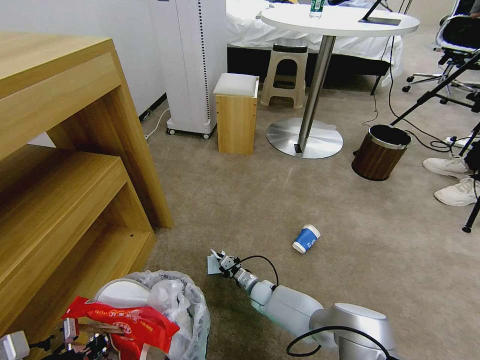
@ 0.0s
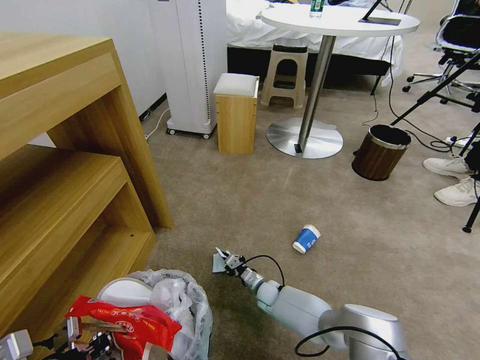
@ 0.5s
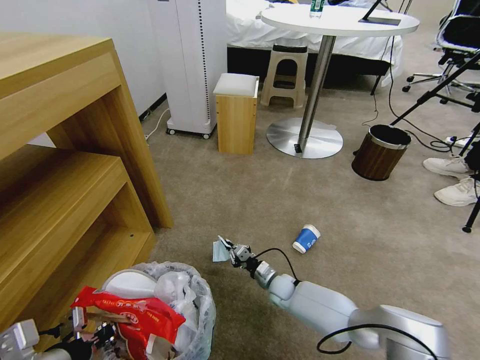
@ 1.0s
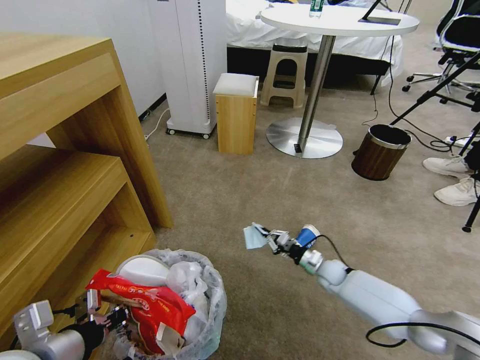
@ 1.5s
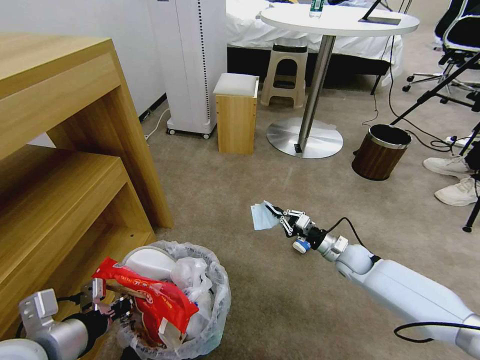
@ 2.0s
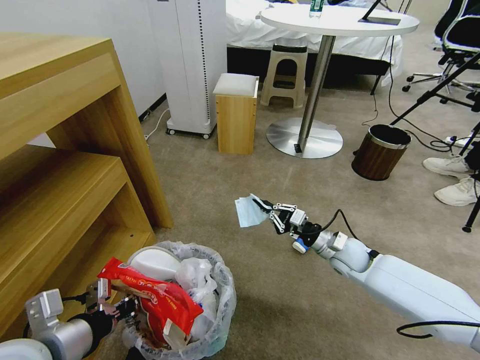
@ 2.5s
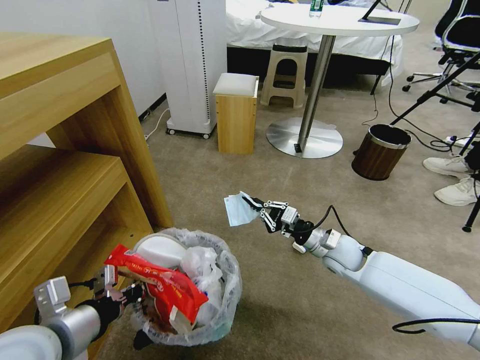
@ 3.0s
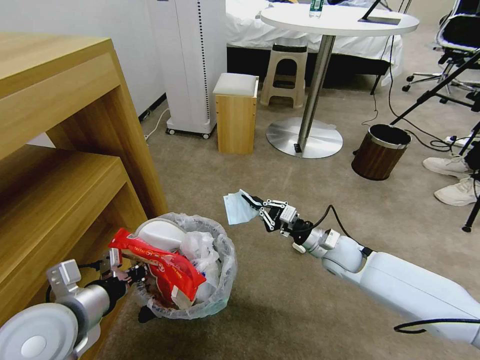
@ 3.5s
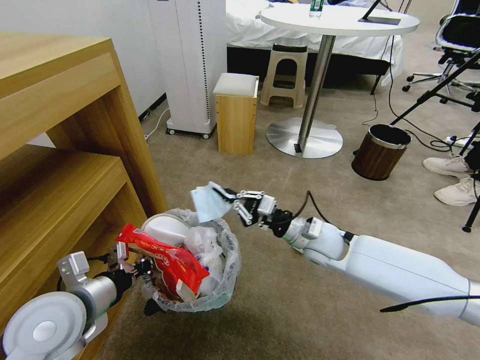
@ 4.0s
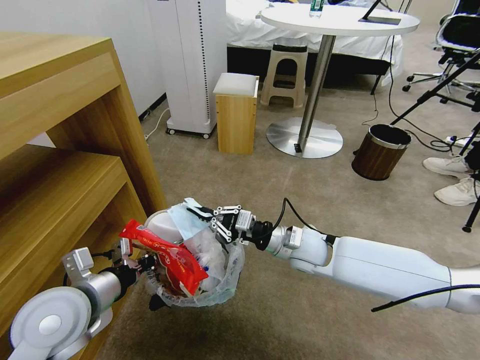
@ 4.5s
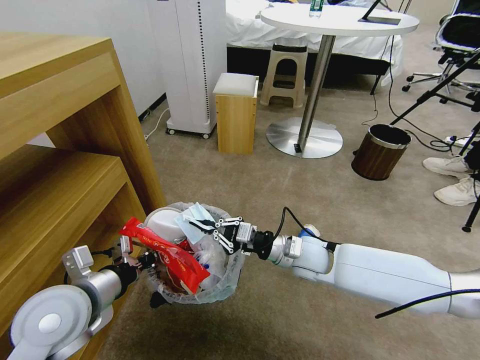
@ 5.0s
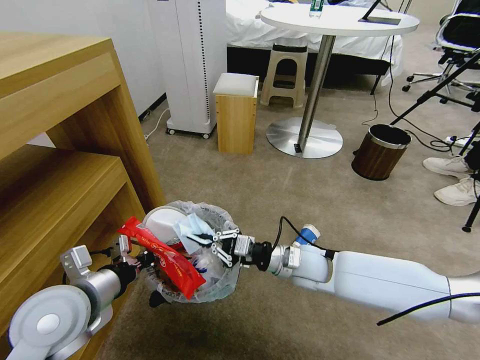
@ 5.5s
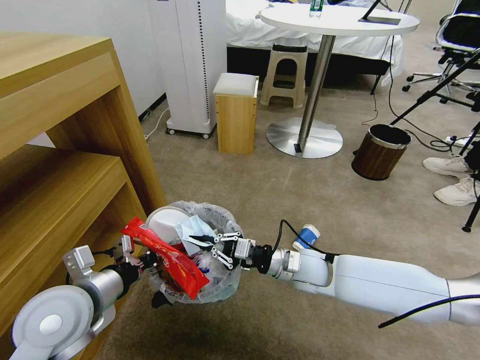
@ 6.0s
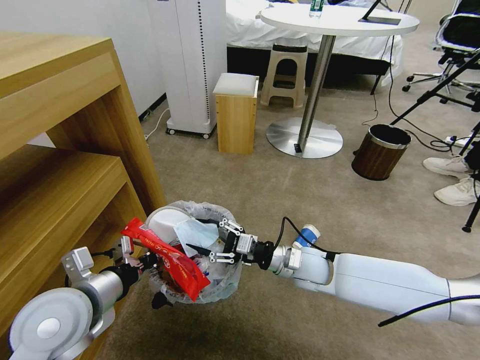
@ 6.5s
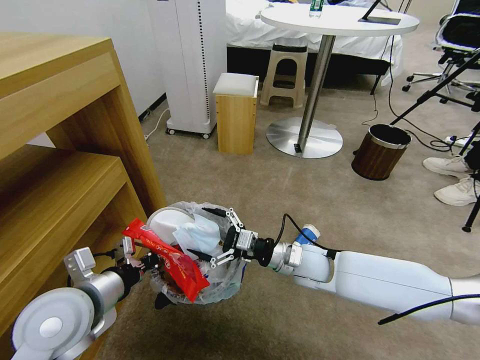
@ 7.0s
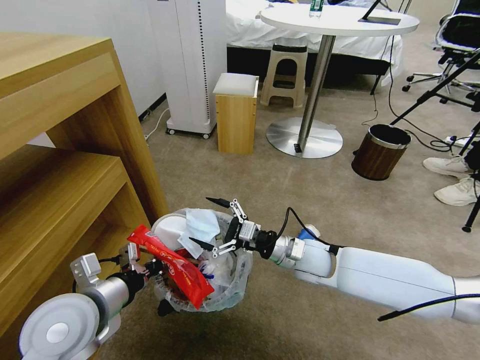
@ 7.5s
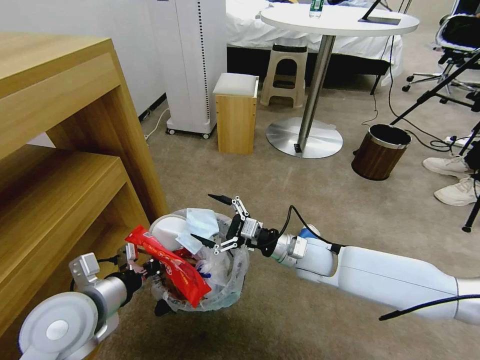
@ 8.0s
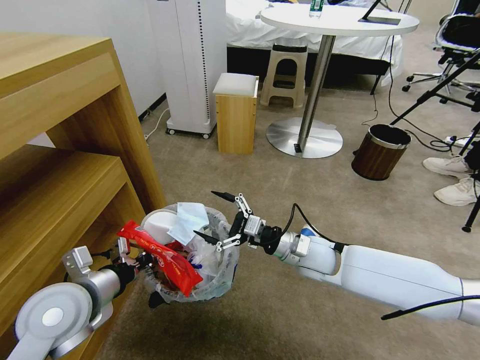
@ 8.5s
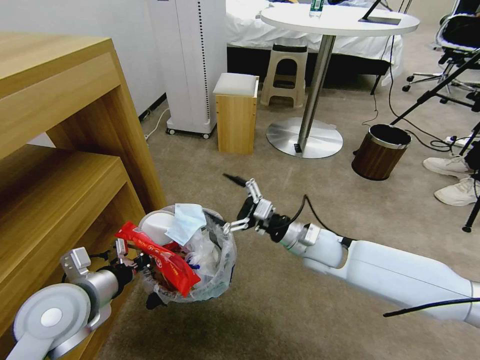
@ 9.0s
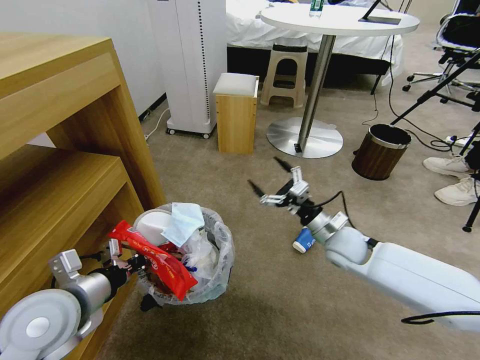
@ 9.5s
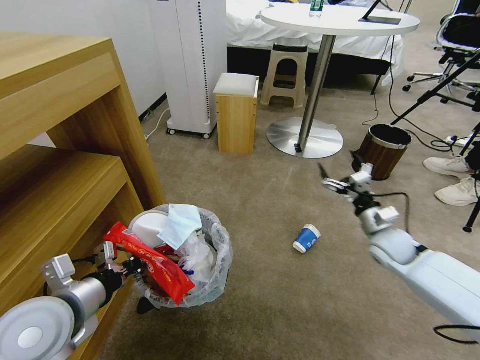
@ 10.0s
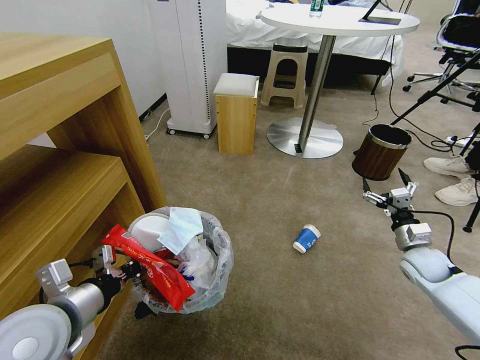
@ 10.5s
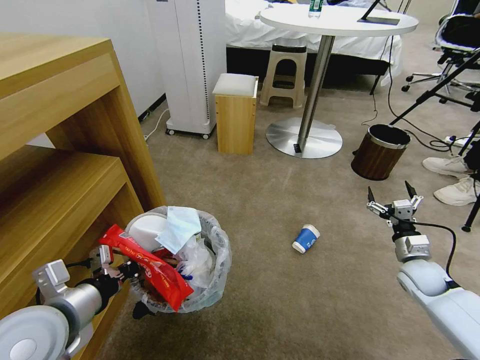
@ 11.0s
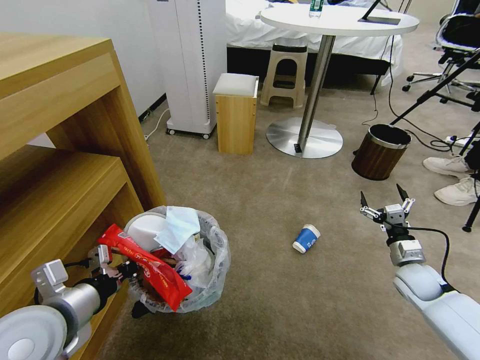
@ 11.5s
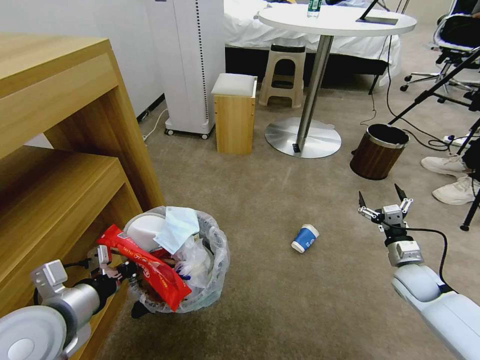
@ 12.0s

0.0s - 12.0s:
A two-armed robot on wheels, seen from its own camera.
Task of the whole recording: Pick up the trash bin and place the garbage on the floor into it.
0.0s - 2.0s: The right gripper shifts approximately 30 cm to the right and upward.
2.0s - 4.0s: The right gripper shifts some 20 cm to the left and upward. Meanwhile the left gripper travels forward by about 5 cm.
4.0s - 6.0s: The right gripper changes place by approximately 5 cm.
6.0s - 8.0s: The right gripper opens.
8.0s - 10.0s: The right gripper is displaced to the right by some 20 cm.
10.0s - 12.0s: The right gripper heads downward, to the right and backward, covering about 10 cm.

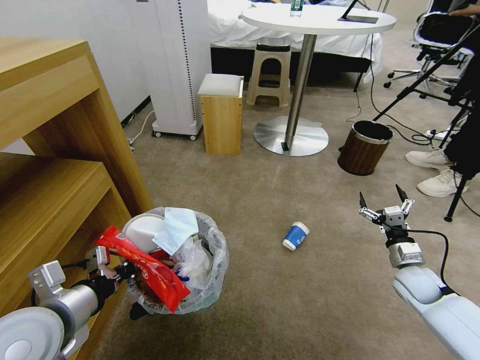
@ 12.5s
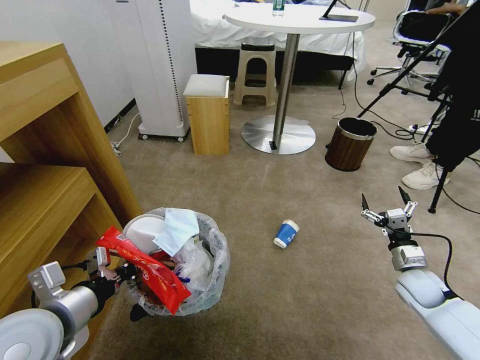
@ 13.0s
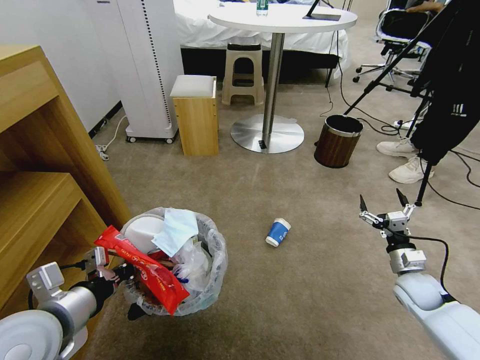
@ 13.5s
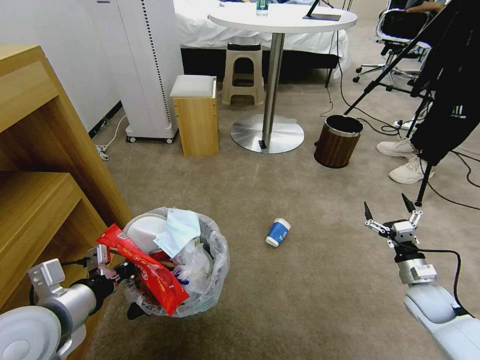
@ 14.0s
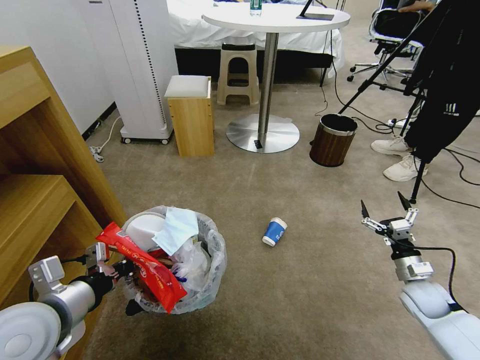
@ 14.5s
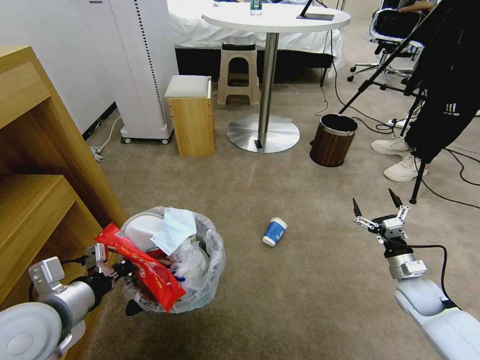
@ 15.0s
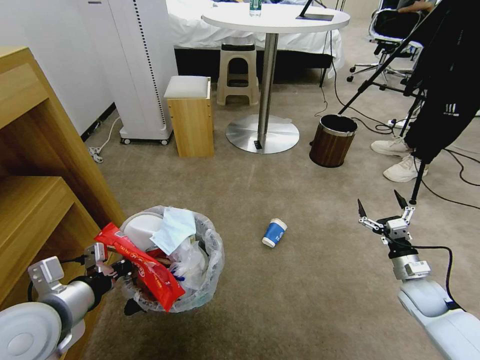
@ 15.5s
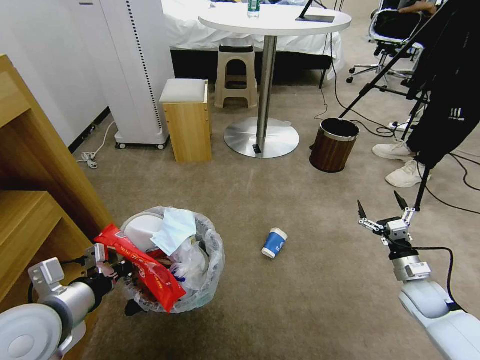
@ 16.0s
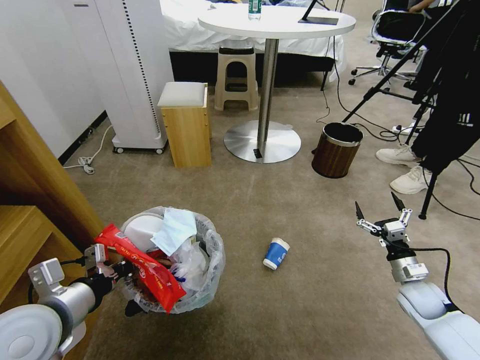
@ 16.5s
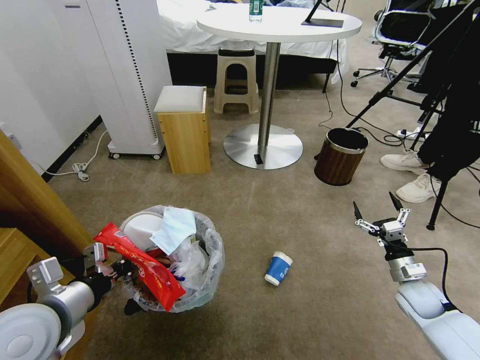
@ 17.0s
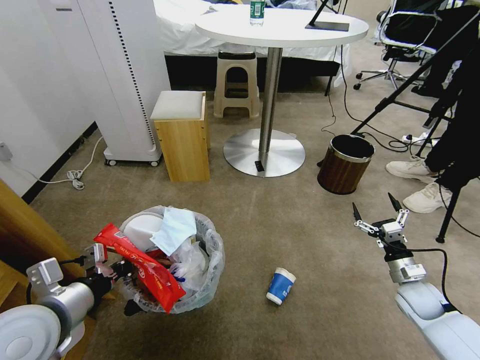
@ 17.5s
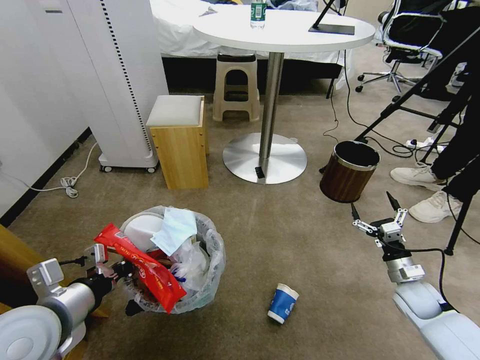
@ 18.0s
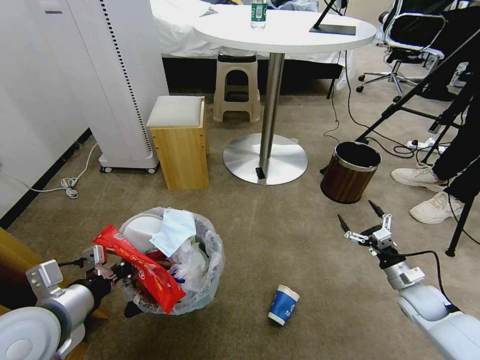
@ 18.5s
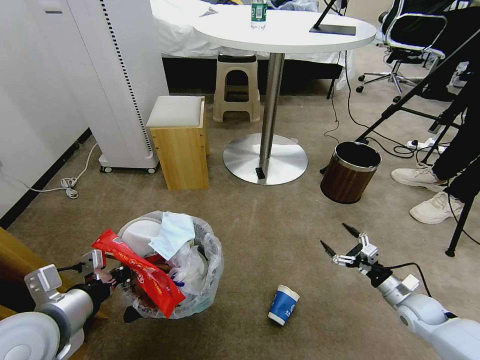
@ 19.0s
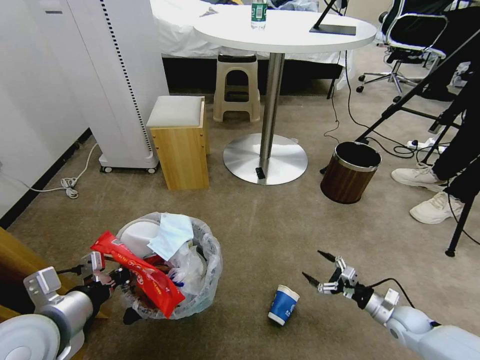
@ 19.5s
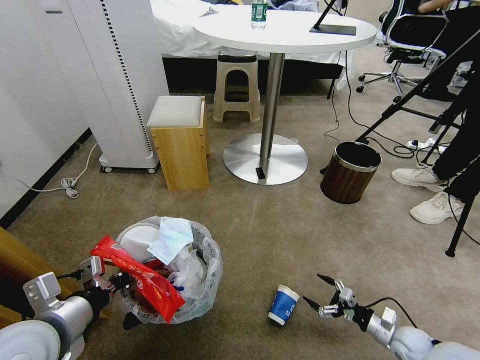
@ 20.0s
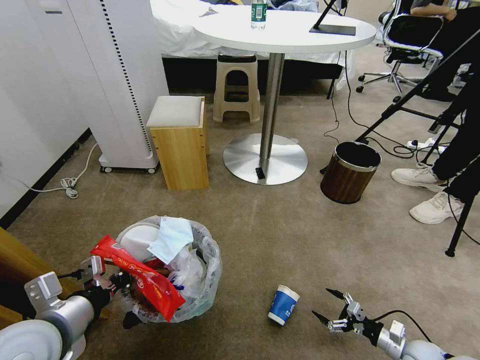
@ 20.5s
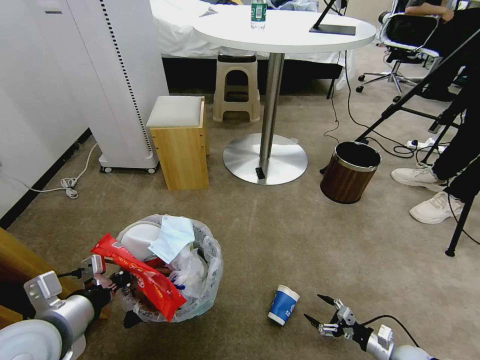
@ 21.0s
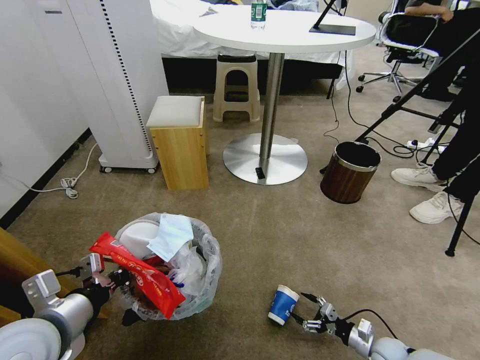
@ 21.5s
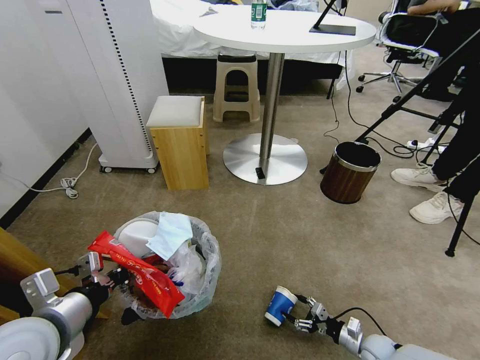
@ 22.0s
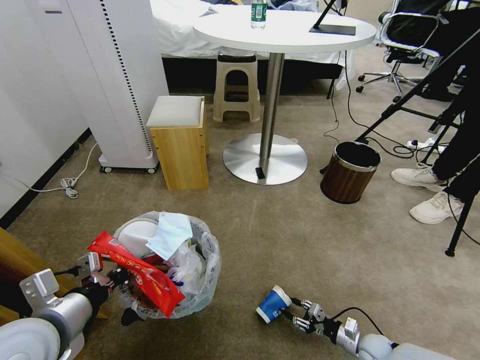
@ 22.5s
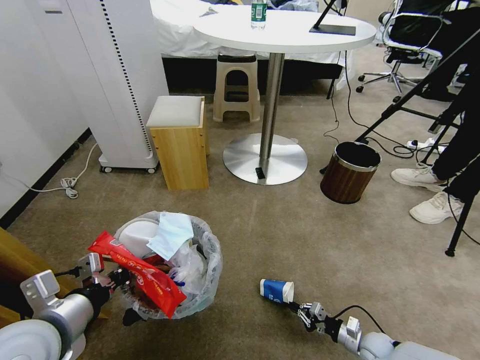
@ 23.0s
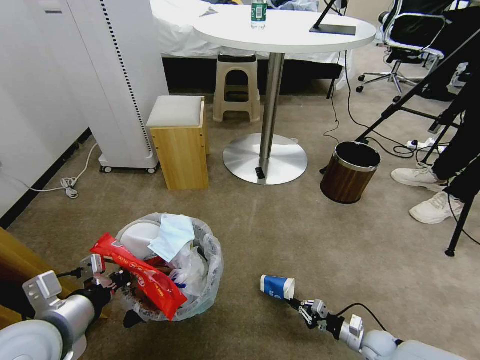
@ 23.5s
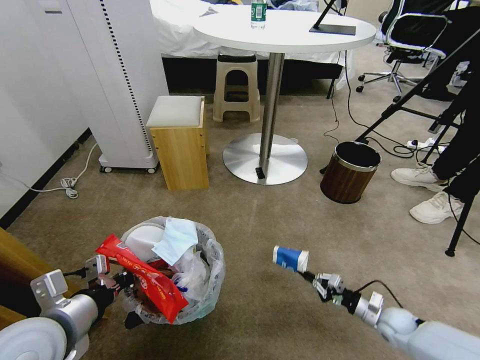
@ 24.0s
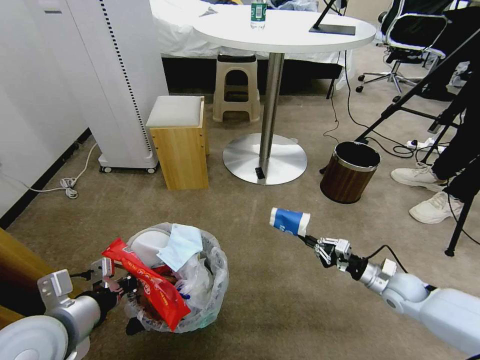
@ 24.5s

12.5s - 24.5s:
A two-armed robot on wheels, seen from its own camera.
Task of the whole recording: Pick up the trash bin and place the garbage on the floor into it.
18.5s - 20.5s: The right gripper goes approximately 15 cm downward and backward.
20.5s - 22.5s: The right gripper travels to the left and downward by roughly 10 cm, and closes up.
22.5s - 24.5s: The right gripper goes some 20 cm upward and forward, and closes up.

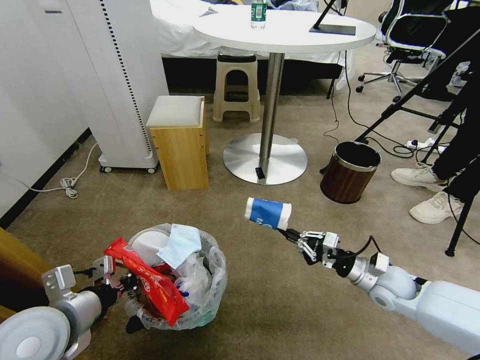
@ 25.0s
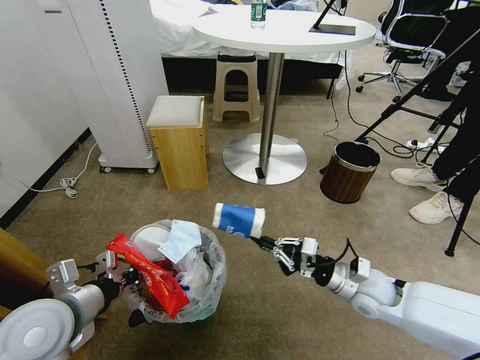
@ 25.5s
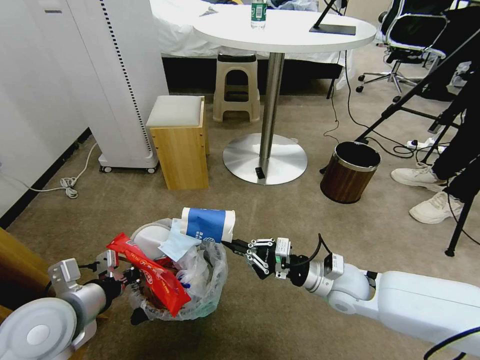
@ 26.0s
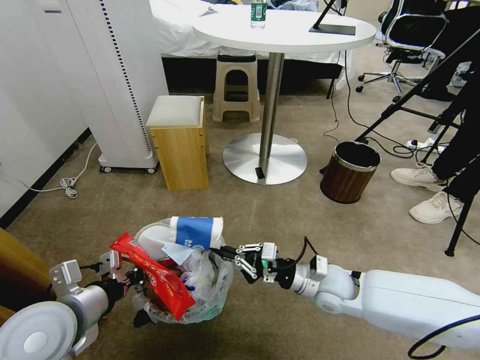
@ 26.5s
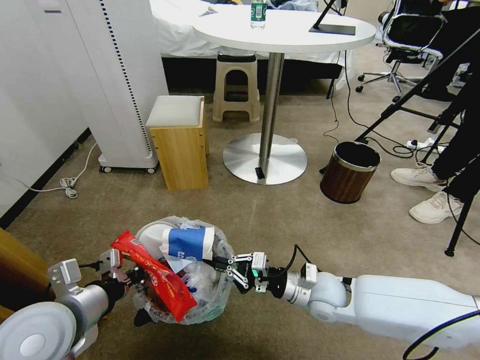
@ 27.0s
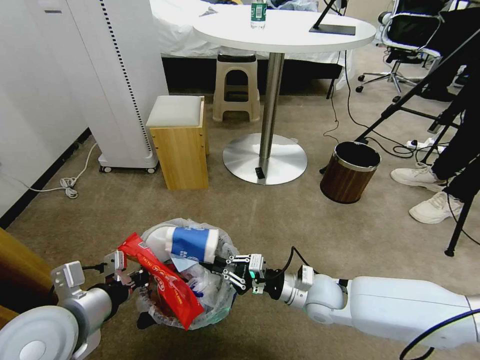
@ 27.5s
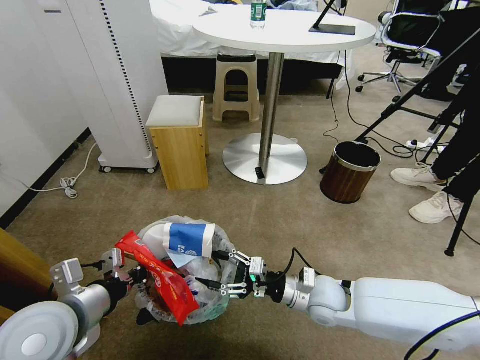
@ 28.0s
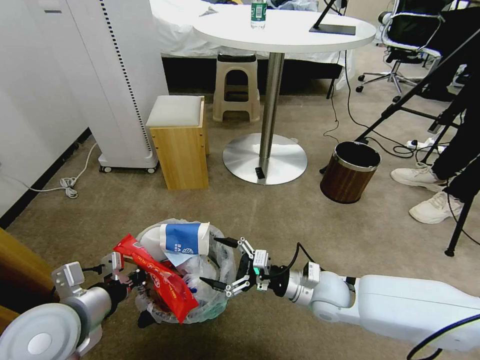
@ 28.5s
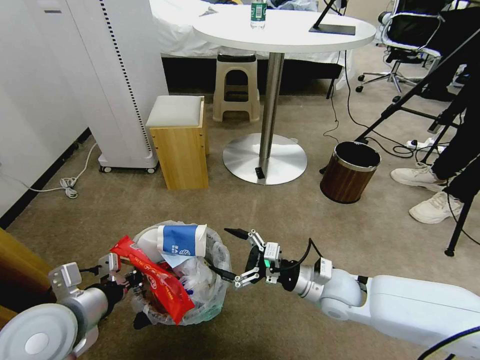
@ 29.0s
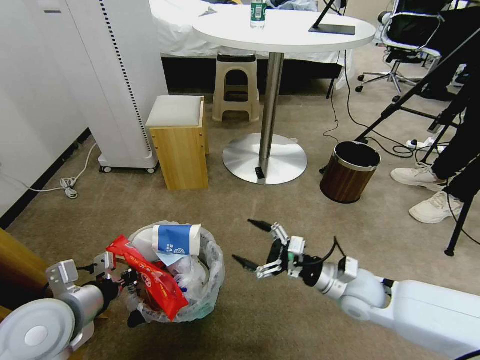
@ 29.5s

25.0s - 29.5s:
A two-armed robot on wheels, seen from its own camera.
Task of the whole recording: Pick up the trash bin and place the garbage on the floor into it.
25.0s - 27.0s: The right gripper is displaced to the left by roughly 15 cm.
27.0s - 29.5s: The right gripper travels to the right by approximately 5 cm, and opens up.
